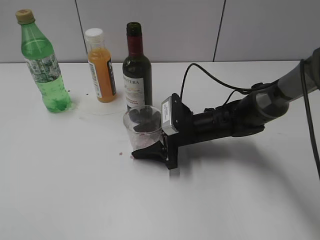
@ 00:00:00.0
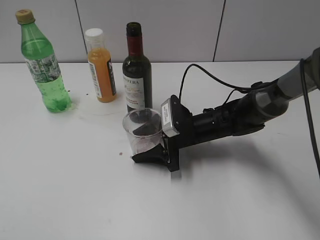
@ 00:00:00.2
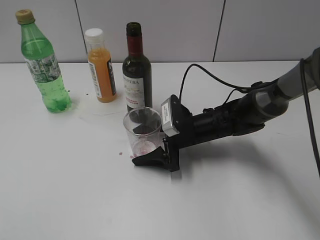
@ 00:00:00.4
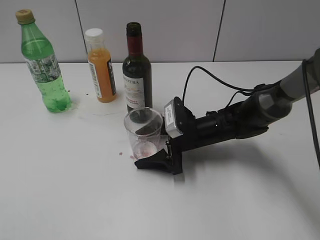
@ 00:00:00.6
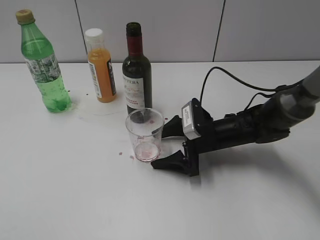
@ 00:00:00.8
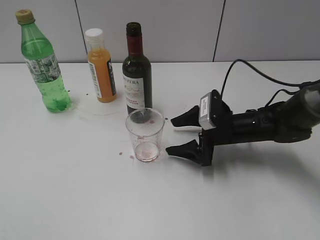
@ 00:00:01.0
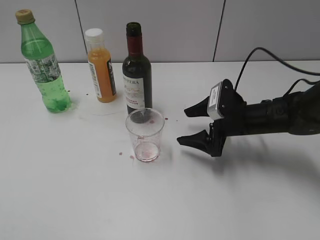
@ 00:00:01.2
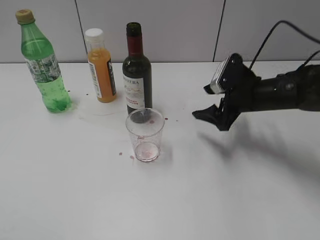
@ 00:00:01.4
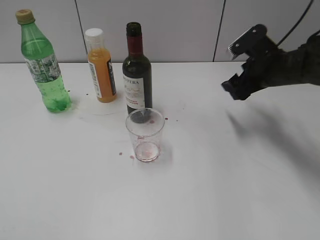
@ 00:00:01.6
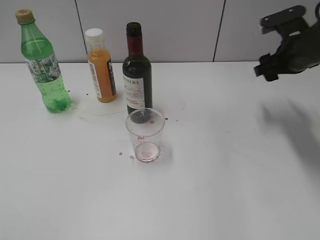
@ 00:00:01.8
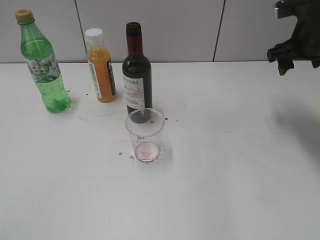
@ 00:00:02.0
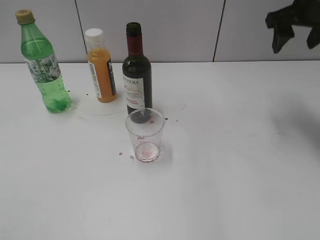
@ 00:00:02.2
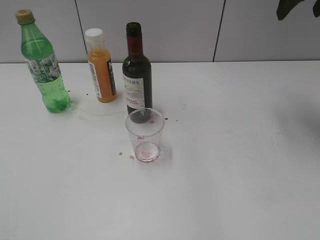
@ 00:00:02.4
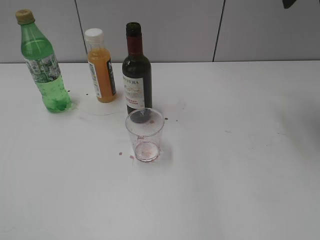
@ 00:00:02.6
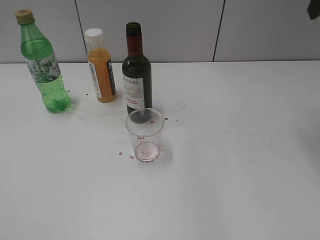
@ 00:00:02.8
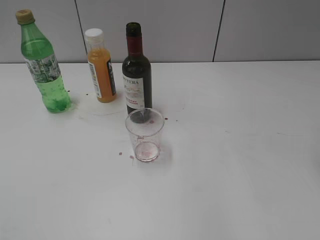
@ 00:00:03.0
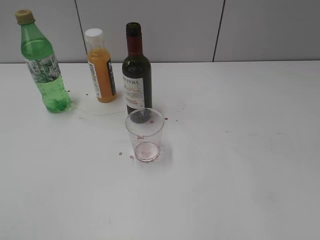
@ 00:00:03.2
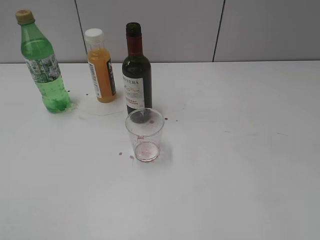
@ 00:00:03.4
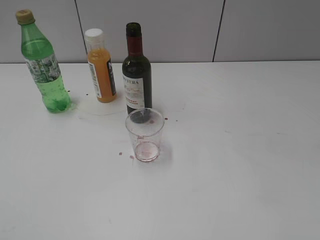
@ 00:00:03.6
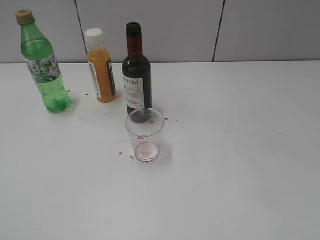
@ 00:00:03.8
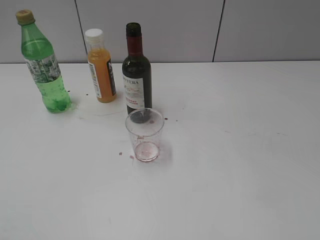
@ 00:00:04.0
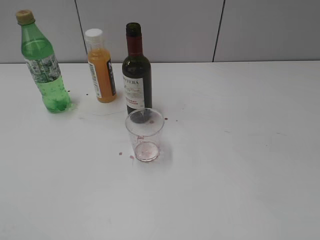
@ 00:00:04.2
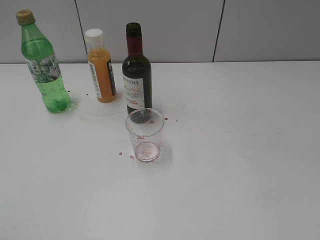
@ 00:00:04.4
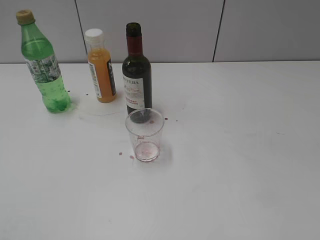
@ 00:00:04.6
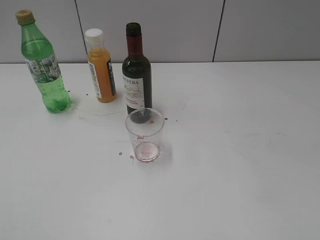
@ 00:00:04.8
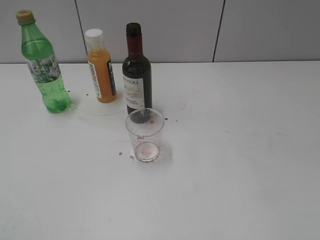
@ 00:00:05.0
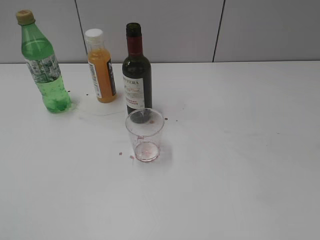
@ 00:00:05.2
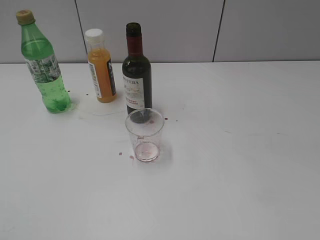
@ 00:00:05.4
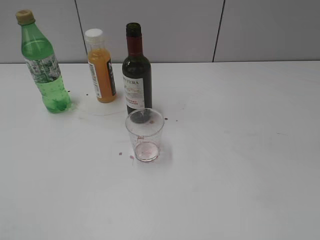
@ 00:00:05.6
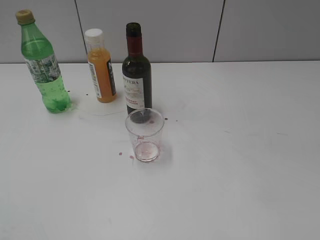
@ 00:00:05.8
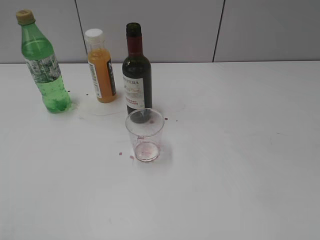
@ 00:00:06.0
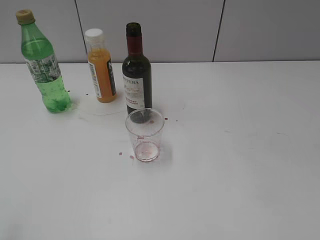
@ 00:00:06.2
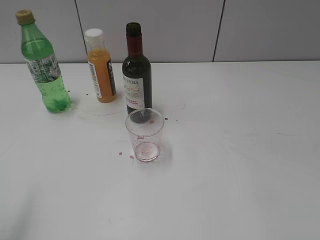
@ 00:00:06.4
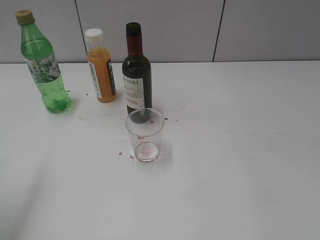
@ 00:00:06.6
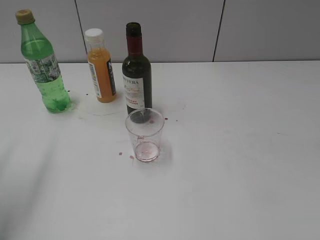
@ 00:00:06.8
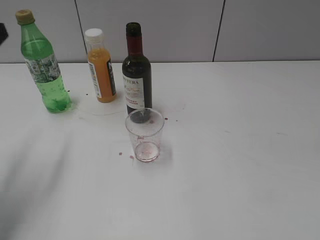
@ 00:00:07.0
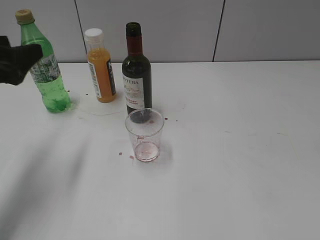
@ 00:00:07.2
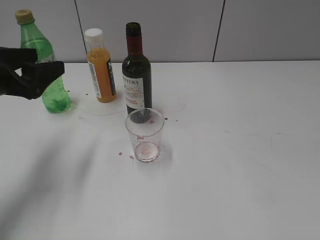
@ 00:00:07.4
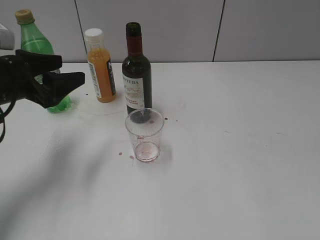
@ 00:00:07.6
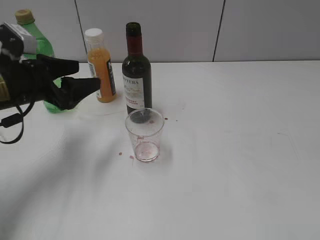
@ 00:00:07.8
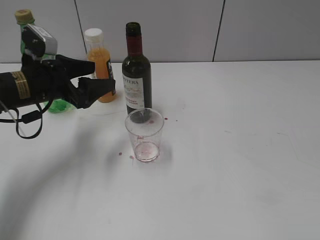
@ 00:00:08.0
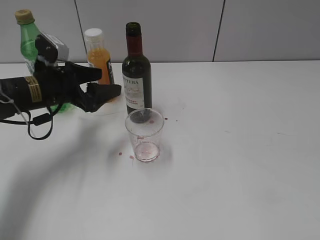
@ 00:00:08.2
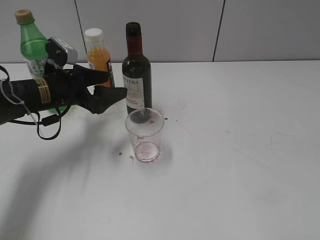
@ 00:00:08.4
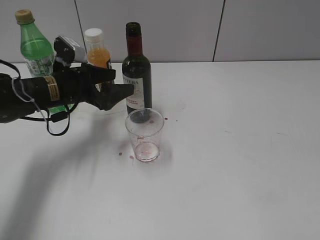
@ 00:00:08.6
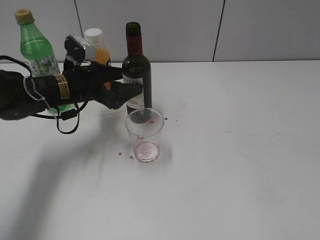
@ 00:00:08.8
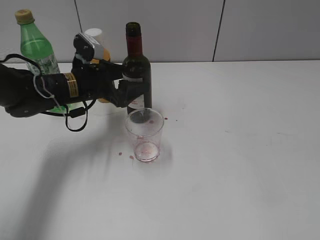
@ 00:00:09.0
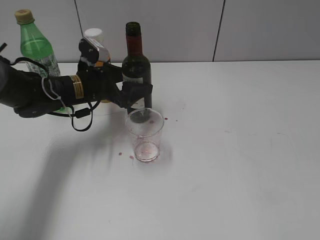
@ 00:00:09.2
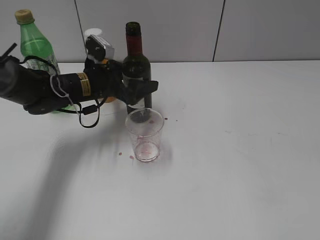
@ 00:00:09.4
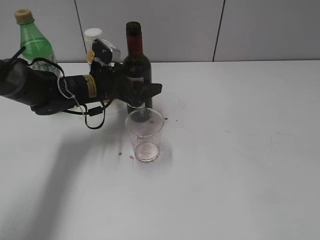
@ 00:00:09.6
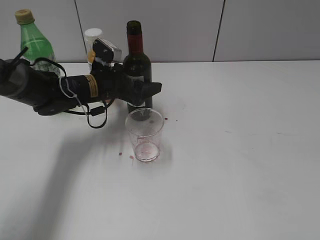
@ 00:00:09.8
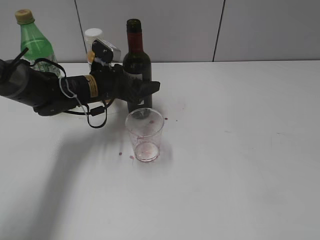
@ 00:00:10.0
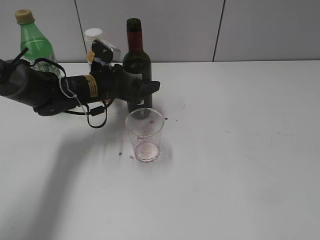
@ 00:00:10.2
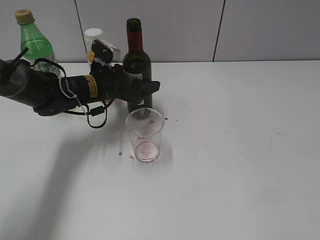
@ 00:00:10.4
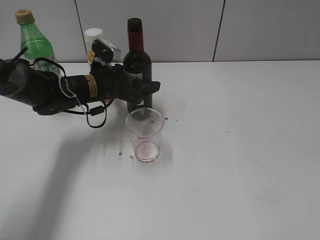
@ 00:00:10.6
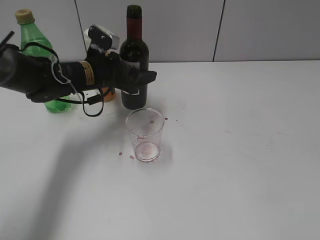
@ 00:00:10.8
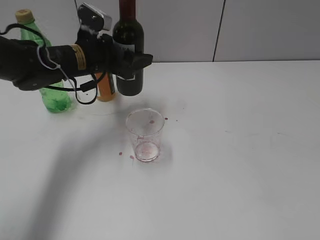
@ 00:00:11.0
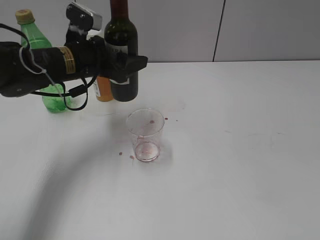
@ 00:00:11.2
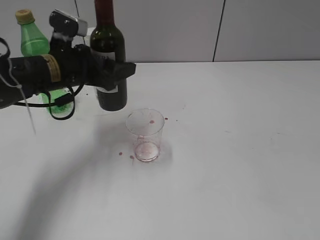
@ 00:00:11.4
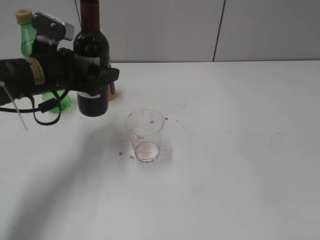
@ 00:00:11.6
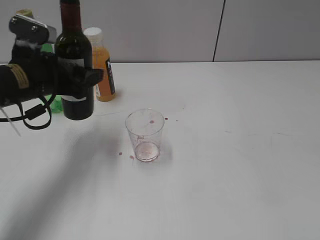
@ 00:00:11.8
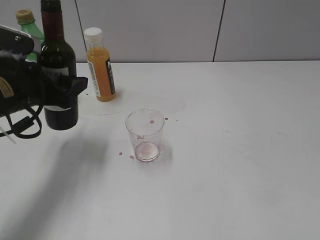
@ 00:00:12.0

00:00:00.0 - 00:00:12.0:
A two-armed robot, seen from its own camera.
Step, 00:00:01.0 - 00:00:10.4: Grasp the bottle with red wine with left gripper.
00:00:00.0 - 00:00:01.6: The right gripper shifts approximately 20 cm to the right and upward, and opens up.
00:00:01.6 - 00:00:03.0: The right gripper goes approximately 25 cm upward and backward.
00:00:06.0 - 00:00:07.6: The left gripper heads forward and downward, covering about 30 cm.
00:00:07.6 - 00:00:09.0: The left gripper goes approximately 15 cm to the right, forward and downward.
00:00:09.0 - 00:00:10.4: The grippers make only small movements.
00:00:10.4 - 00:00:12.0: The left gripper travels backward, to the left and upward by about 15 cm.

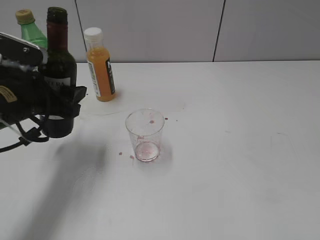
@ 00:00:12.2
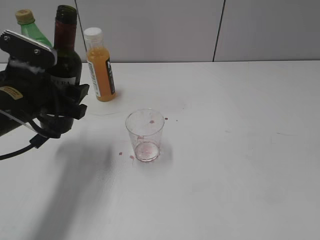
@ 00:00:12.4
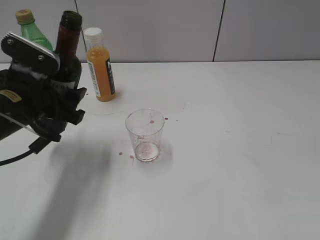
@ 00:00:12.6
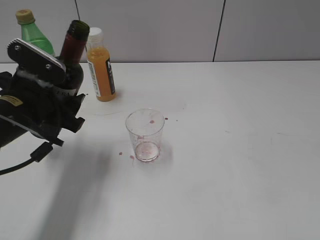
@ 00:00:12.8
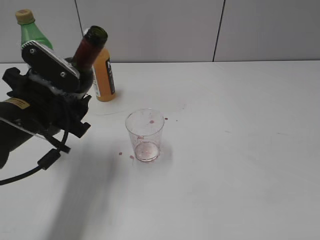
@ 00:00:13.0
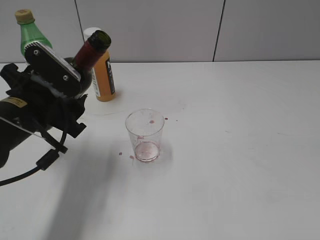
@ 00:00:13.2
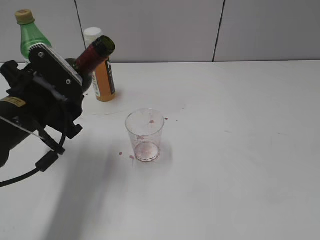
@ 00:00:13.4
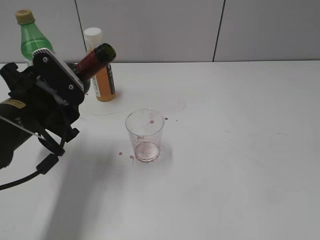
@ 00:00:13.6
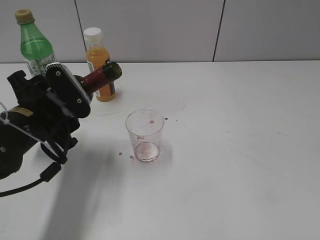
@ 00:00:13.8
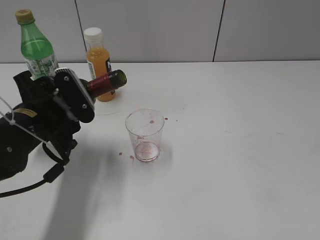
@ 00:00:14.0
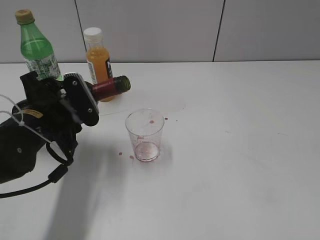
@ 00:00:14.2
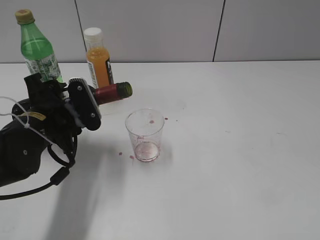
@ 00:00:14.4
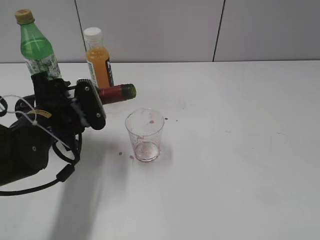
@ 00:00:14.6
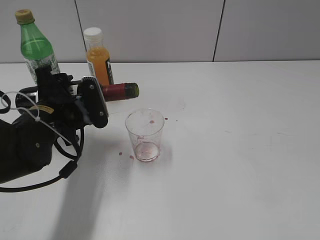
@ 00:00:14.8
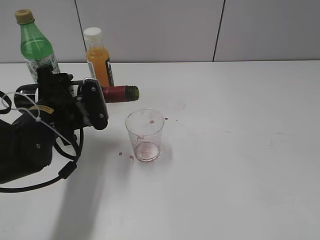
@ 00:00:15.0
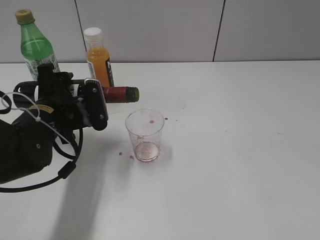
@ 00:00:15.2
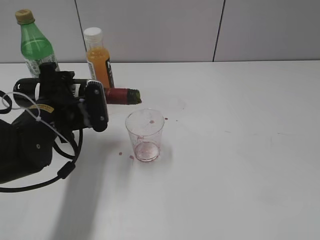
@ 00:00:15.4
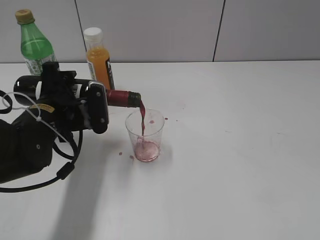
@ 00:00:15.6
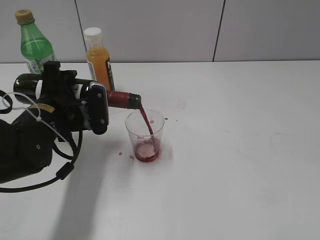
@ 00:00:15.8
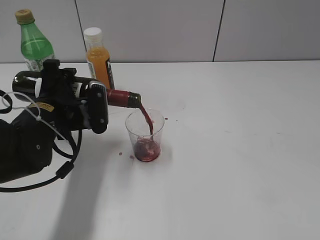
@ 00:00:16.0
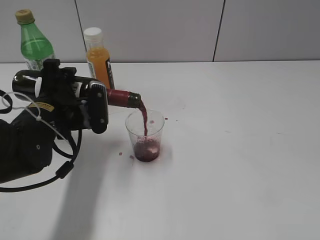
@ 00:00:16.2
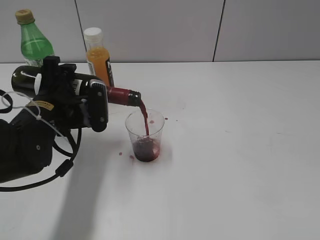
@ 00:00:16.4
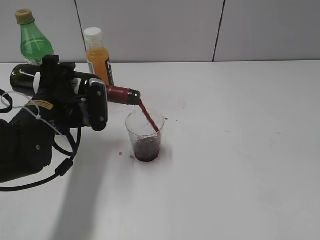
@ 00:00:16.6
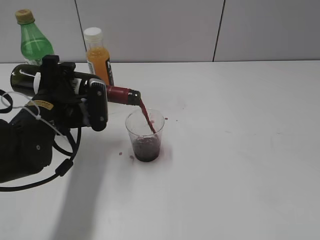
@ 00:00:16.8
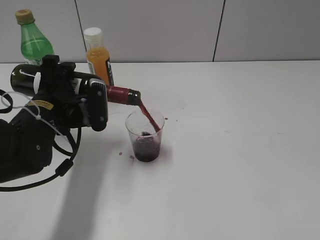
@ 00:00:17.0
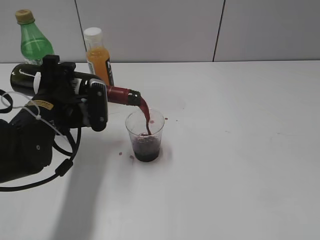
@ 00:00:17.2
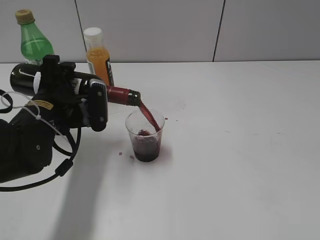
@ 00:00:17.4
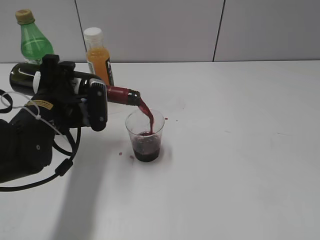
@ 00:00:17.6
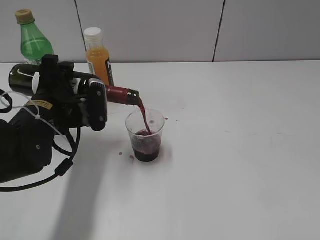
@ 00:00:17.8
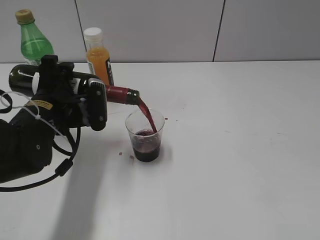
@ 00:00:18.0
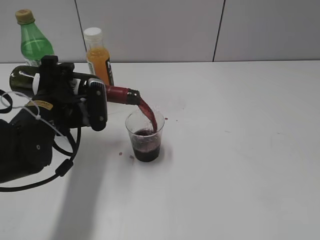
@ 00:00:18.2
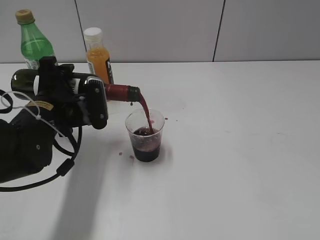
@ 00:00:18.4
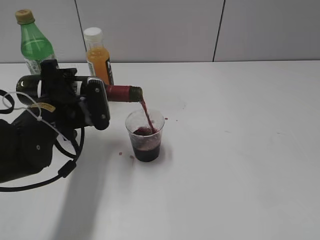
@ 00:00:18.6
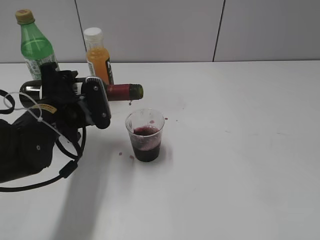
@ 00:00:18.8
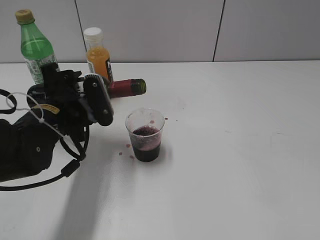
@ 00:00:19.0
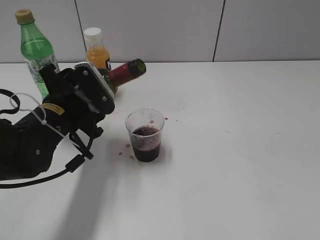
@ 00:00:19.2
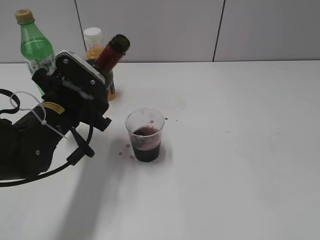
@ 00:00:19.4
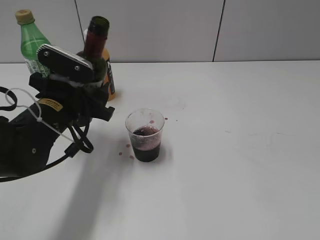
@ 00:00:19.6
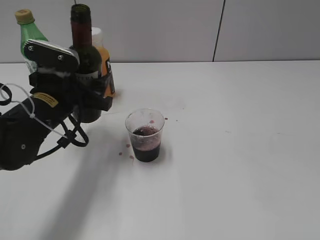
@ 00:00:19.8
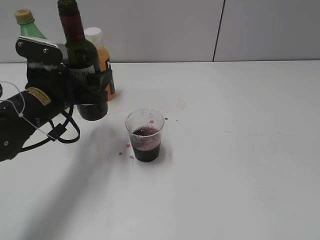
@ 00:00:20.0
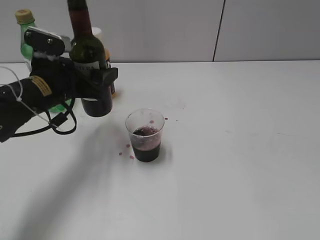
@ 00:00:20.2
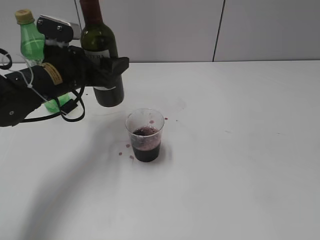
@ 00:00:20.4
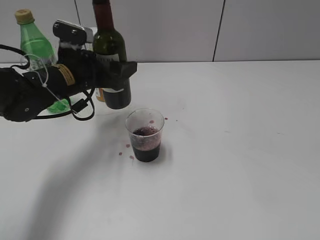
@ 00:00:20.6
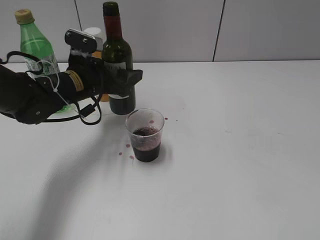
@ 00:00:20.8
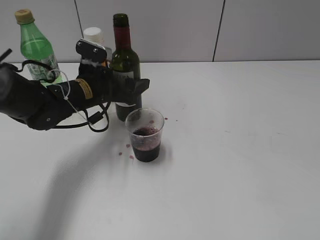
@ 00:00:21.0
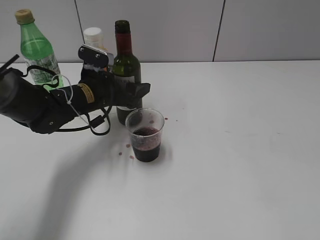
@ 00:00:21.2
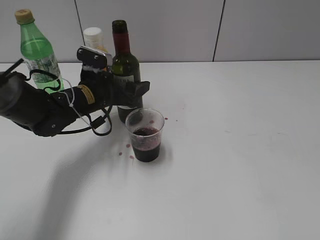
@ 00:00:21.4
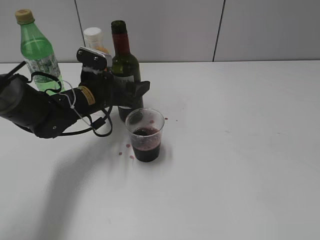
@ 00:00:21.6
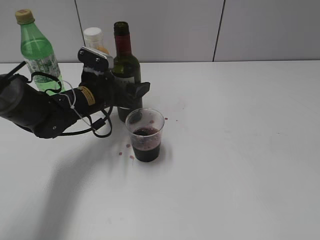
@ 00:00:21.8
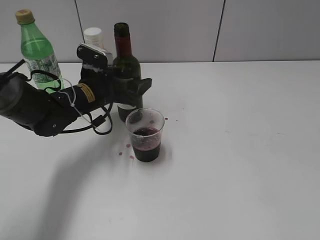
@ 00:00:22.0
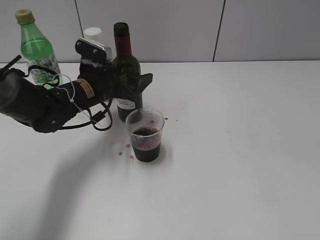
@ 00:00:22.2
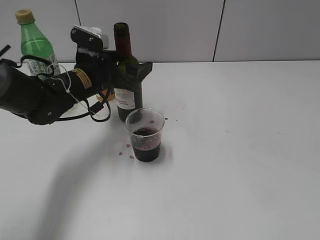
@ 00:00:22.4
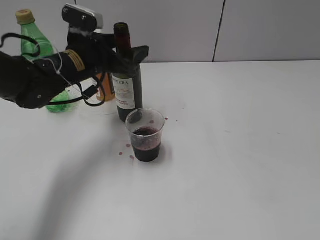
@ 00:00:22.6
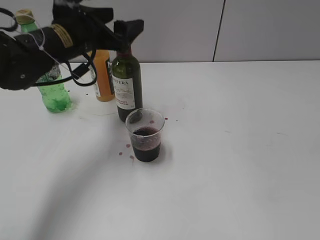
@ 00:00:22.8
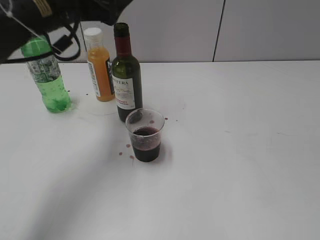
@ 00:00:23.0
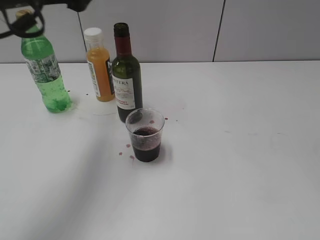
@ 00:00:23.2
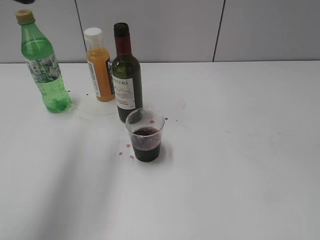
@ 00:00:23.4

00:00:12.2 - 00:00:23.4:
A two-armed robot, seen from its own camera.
Step, 00:00:12.2 - 00:00:19.0: Pour the red wine from bottle to cup with left gripper.
Step, 00:00:19.2 - 00:00:22.4: Place the red wine bottle on the table with left gripper.
00:00:15.4 - 00:00:18.6: There are only small adjustments of the grippers.
00:00:18.6 - 00:00:20.2: The left gripper shifts by some 5 cm.
00:00:20.2 - 00:00:21.8: The left gripper heads downward and forward, covering about 10 cm.
00:00:21.8 - 00:00:23.4: The left gripper is displaced upward and backward by roughly 30 cm.
